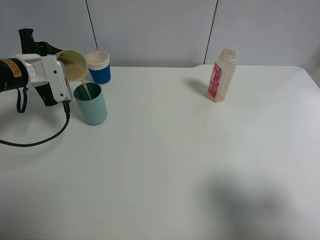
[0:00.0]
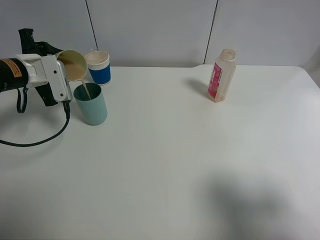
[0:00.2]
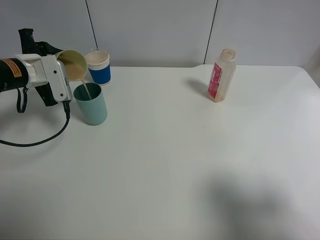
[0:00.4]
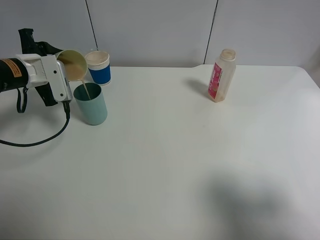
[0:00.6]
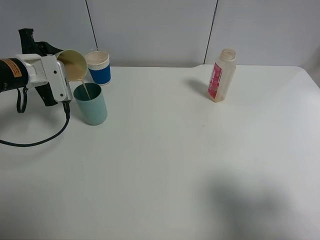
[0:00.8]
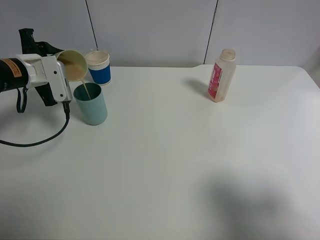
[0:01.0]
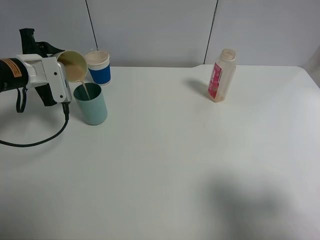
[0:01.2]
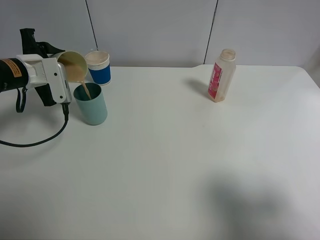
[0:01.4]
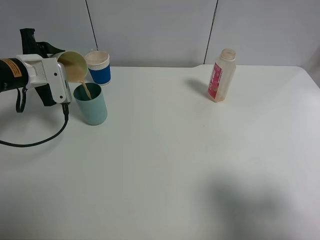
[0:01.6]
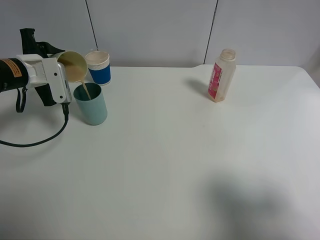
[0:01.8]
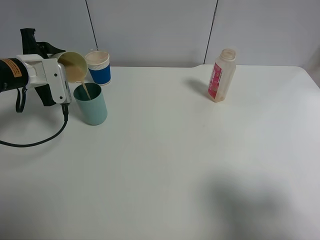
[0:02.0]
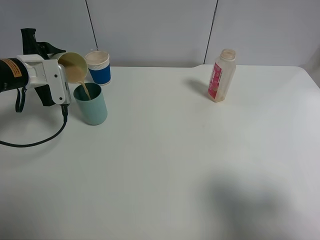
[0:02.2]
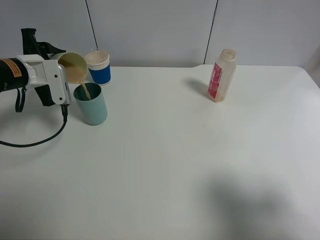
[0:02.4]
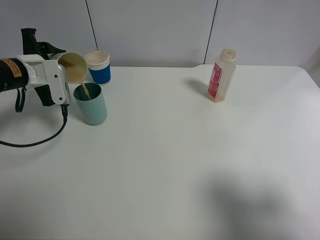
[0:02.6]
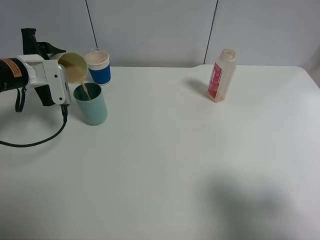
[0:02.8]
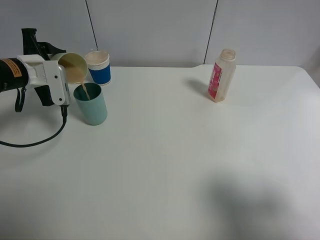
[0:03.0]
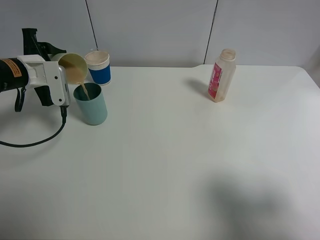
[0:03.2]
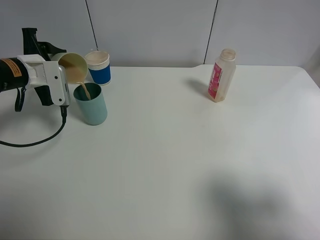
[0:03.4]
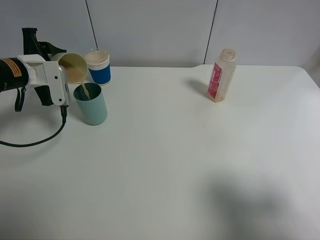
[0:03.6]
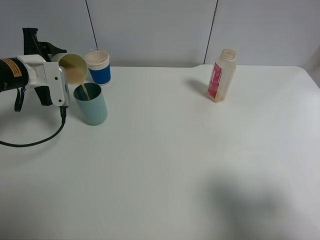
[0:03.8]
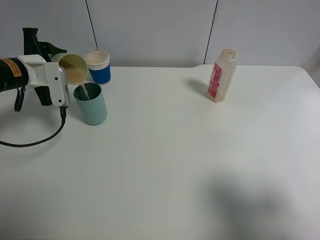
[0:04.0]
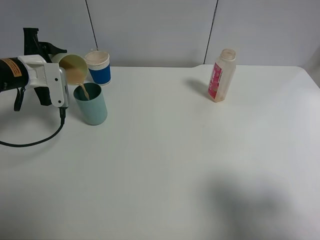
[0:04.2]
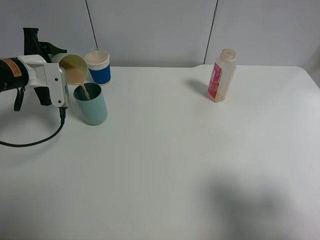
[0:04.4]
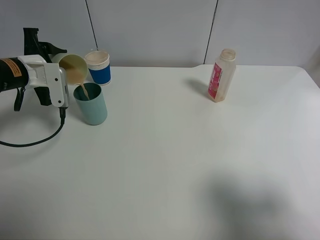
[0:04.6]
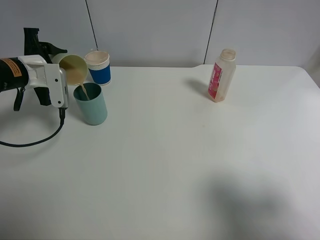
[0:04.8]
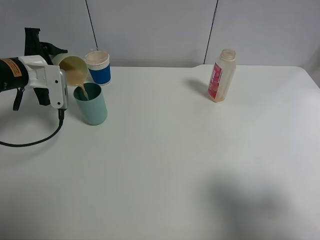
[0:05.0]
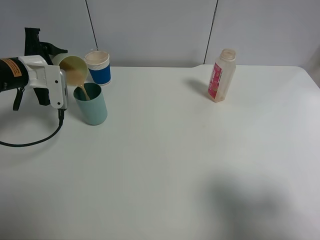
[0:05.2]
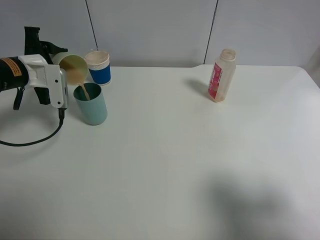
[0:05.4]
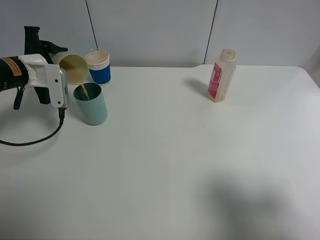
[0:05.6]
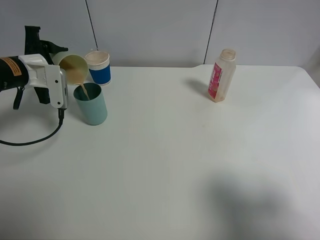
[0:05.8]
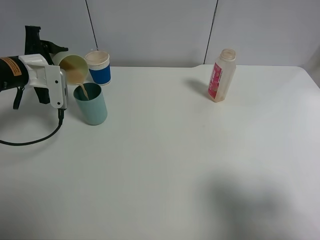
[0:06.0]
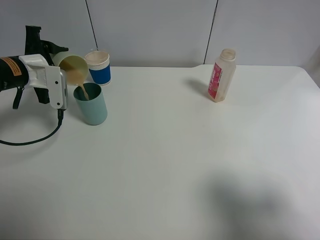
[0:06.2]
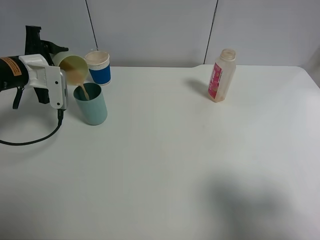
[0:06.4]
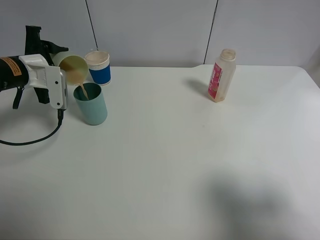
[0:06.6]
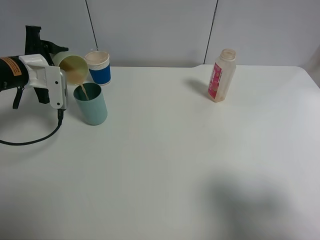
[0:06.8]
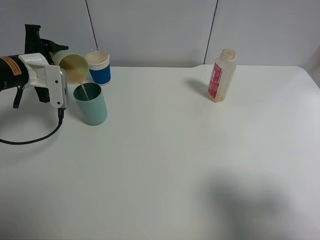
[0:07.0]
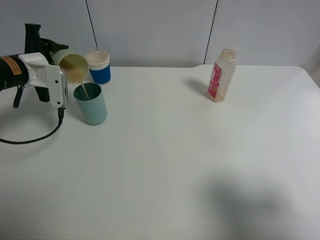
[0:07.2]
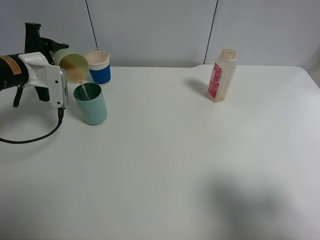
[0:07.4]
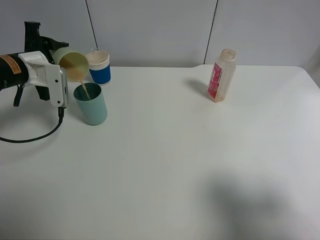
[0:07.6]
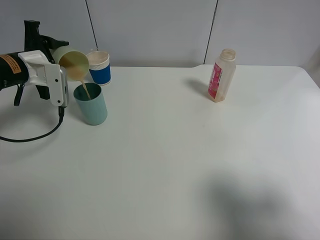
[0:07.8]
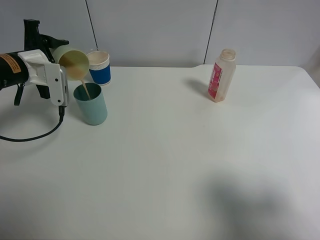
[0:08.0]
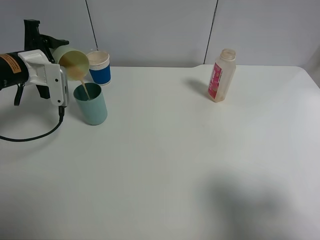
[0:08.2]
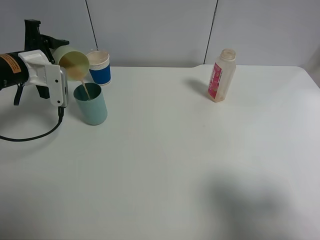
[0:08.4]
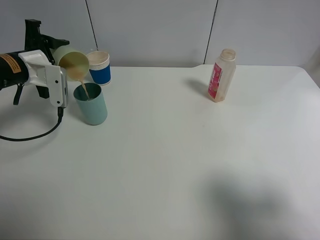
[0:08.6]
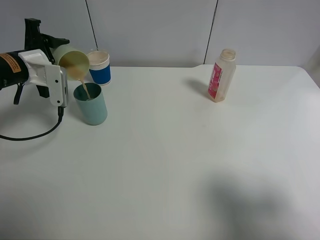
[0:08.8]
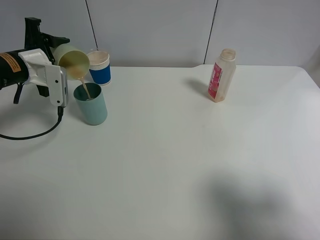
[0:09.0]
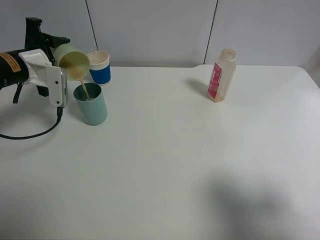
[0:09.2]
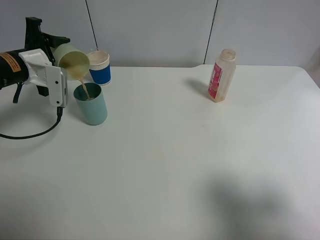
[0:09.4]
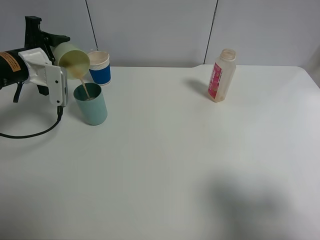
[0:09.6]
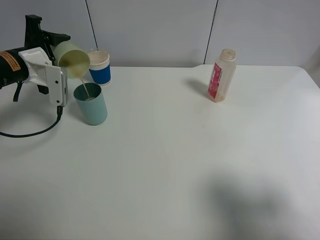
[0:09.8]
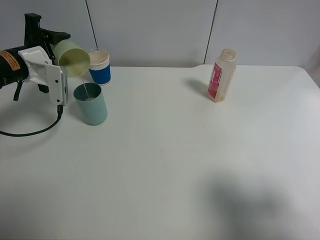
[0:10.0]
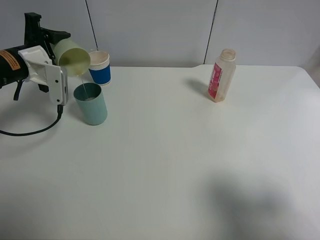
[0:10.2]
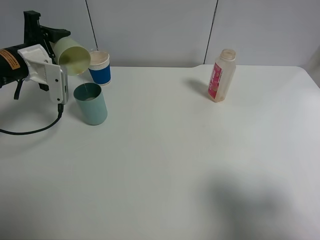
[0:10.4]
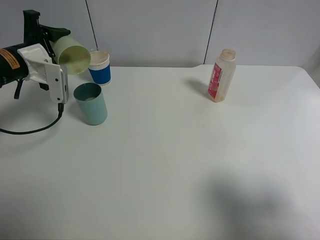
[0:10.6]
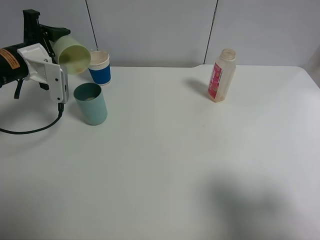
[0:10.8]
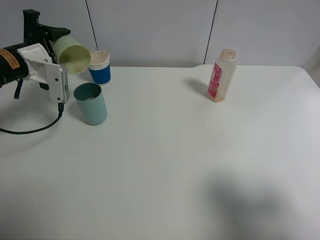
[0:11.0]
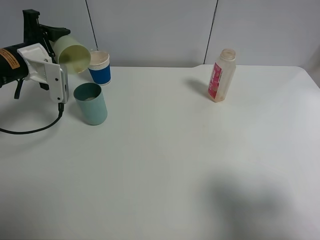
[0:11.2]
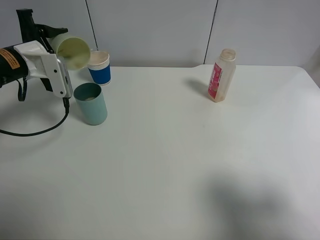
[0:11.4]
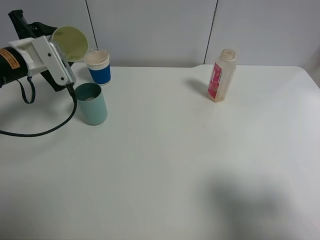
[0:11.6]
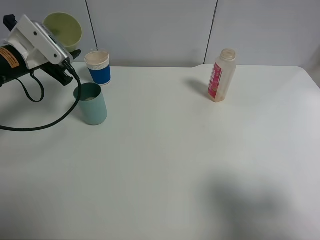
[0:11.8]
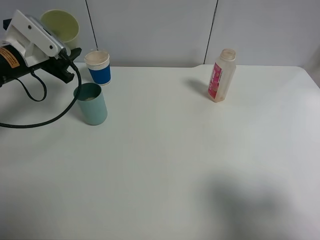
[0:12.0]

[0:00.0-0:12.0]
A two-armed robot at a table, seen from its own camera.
Task of the whole recording: use a clamp to hold the bottle of the drink, pour the beverage into a random cup, then clamp the cup containing the drink and pour the drink into another random cup.
0:00.0 to 0:01.6: The two grippers keep their place.
0:01.6 to 0:03.0: The two grippers keep their place.
0:03.0 to 0:04.4: Both grippers stay about where they are.
0:04.4 to 0:06.0: Neither gripper changes place.
0:06.0 to 0:07.6: Both grippers stay about where they are.
0:07.6 to 0:09.0: Both grippers stay put.
0:09.0 to 0:10.4: The grippers make only small movements.

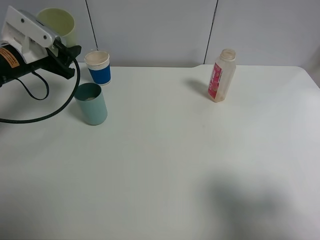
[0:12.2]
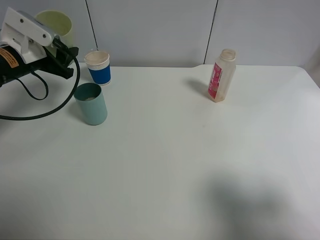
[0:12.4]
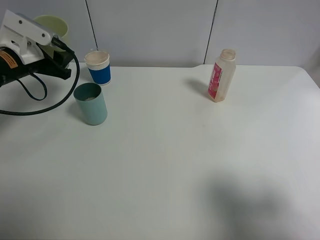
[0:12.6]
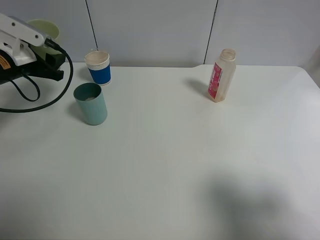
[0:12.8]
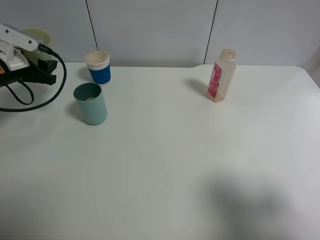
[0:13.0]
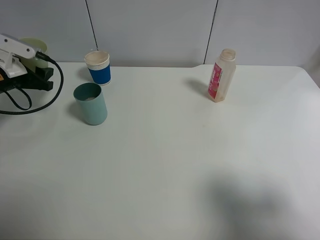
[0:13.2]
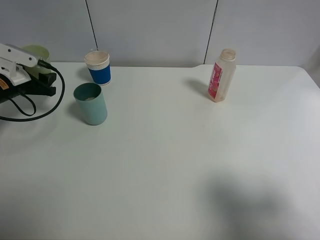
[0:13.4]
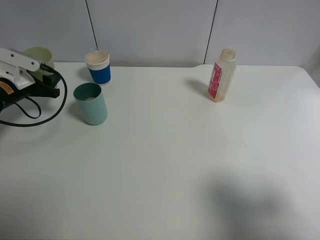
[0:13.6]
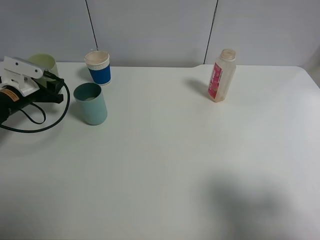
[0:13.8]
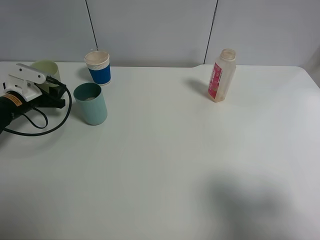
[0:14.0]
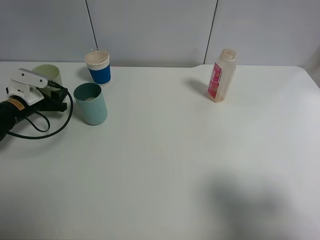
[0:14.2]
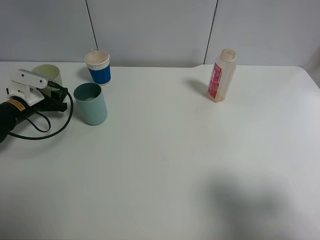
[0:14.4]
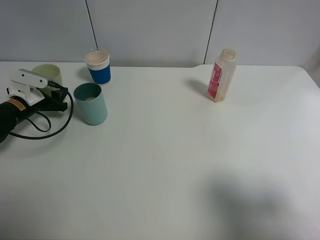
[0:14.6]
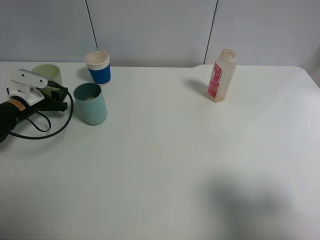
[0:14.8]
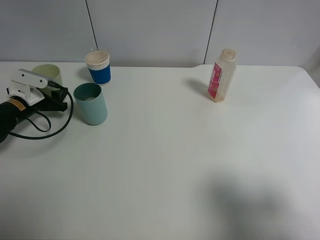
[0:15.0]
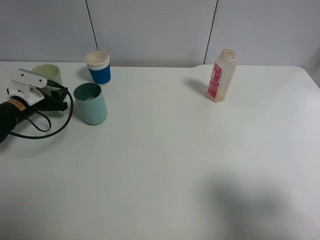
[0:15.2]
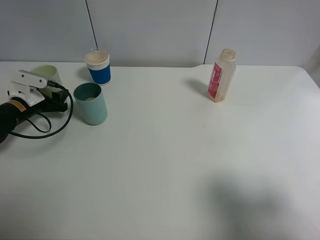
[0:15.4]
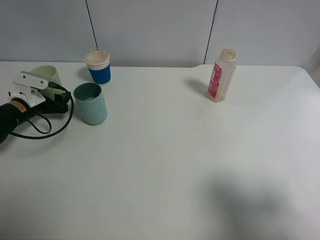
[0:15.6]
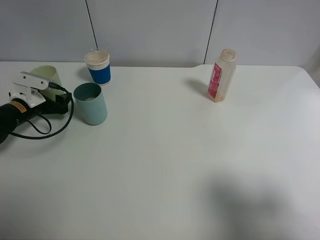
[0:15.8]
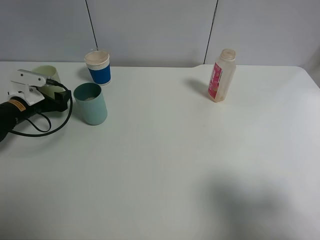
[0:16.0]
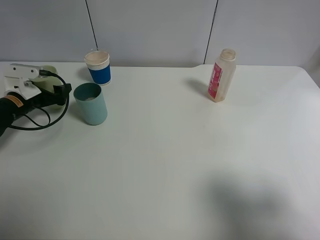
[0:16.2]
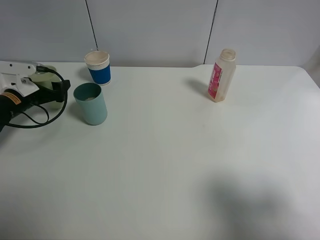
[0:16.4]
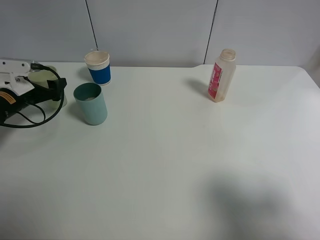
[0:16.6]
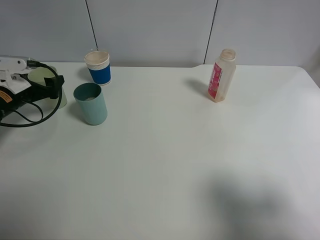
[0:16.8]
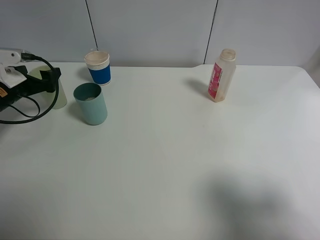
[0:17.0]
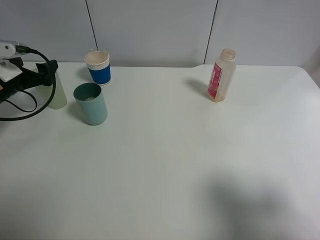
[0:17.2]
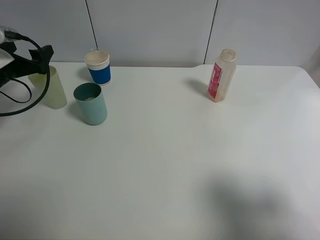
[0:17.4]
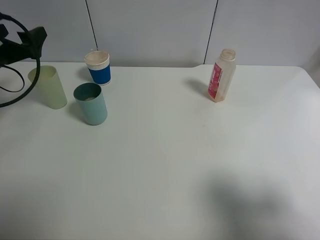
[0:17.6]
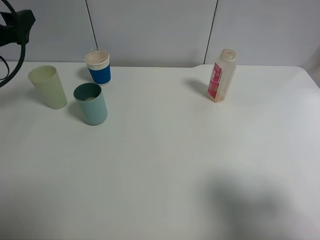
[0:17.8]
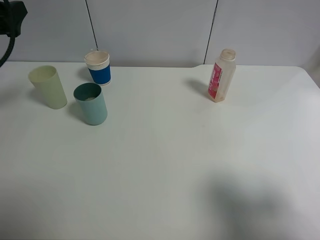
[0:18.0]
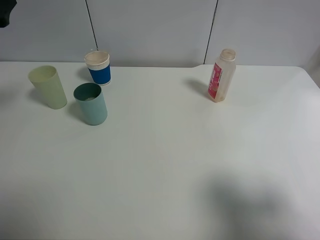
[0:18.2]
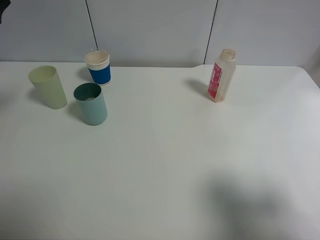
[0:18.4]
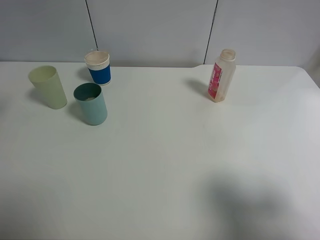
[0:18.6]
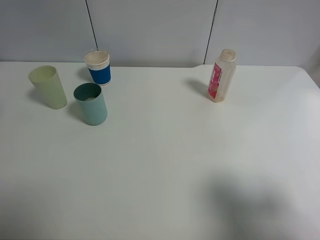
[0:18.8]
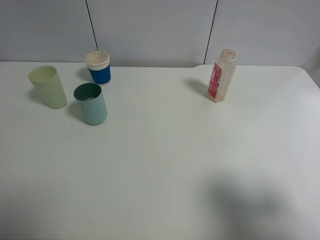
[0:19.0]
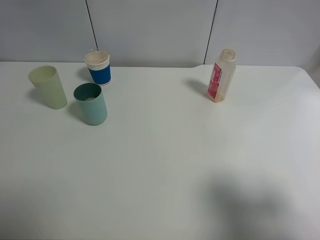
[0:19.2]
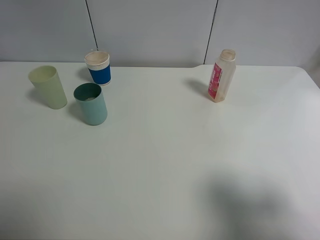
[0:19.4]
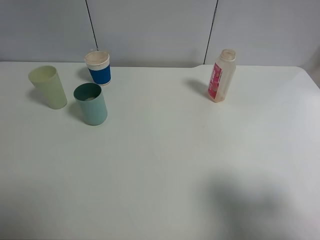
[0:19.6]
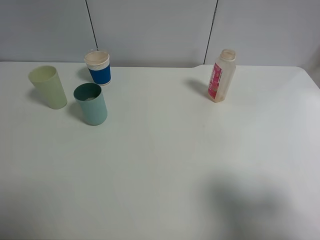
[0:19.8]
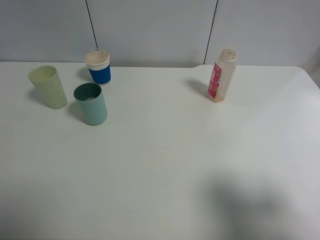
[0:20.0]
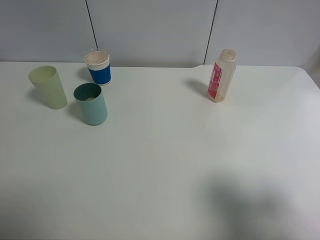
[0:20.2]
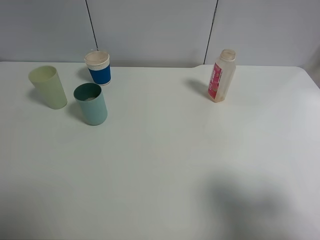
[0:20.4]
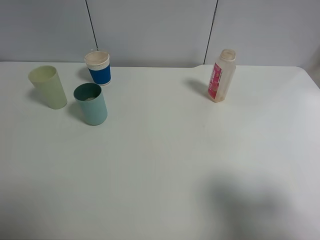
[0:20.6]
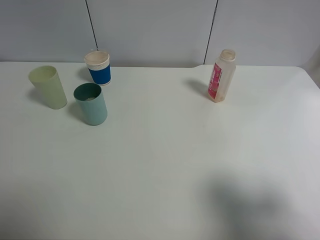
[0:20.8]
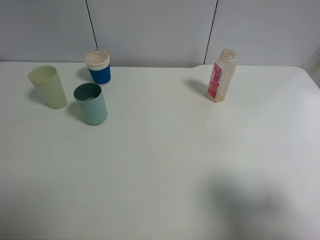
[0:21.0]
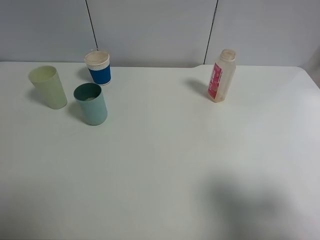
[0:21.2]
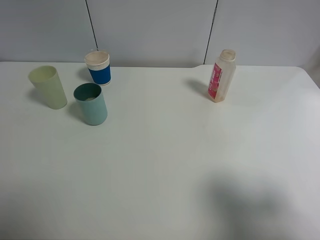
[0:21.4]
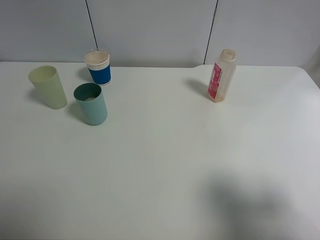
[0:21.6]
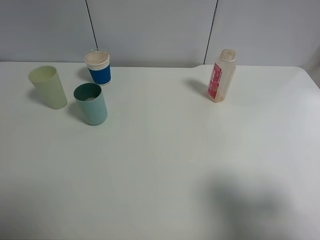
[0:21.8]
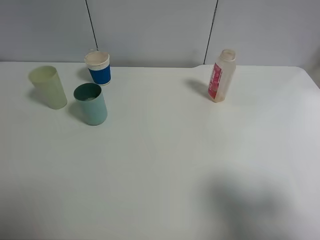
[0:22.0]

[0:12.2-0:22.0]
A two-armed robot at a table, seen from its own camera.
Task of the whole recording: use a clamp to hold the bottle of the drink, pour the beverage into a random cup, then clamp the cup containing the drink and pour the drink into another random cup.
Step, 0:12.4 to 0:16.0: Place the green plastic cup on the table with left gripper.
0:12.2 to 0:13.6: The left gripper moves downward and to the left, about 10 cm.
0:13.6 to 0:15.0: The left gripper shifts roughly 5 cm downward.
0:15.0 to 0:16.4: The left gripper opens up.
0:16.4 to 0:17.8: The left gripper travels upward by approximately 15 cm.
0:17.8 to 0:19.2: The left gripper shifts about 20 cm backward and upward.
